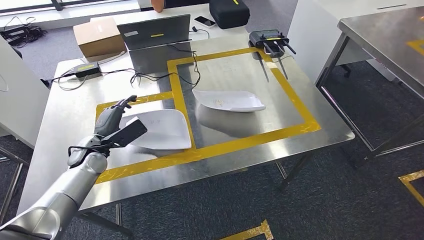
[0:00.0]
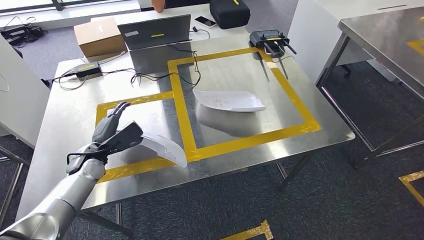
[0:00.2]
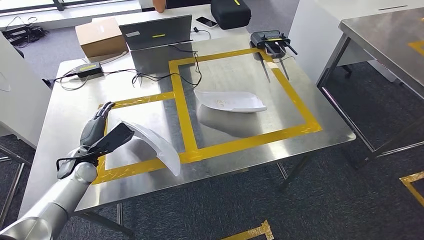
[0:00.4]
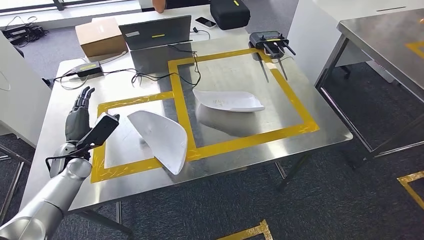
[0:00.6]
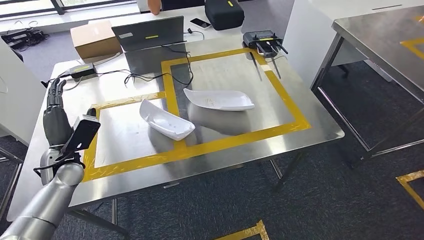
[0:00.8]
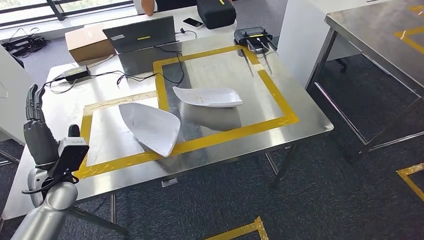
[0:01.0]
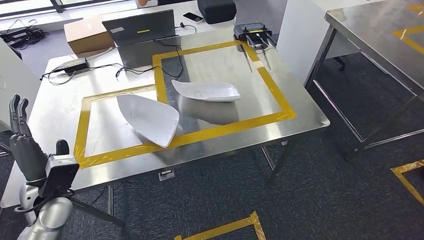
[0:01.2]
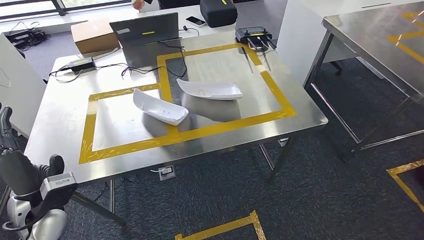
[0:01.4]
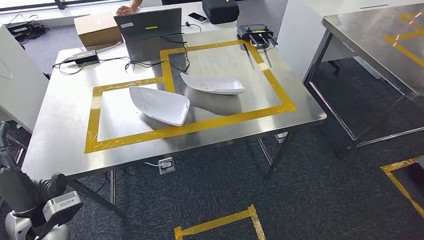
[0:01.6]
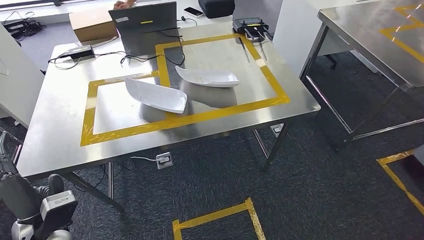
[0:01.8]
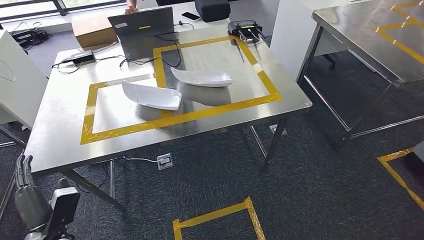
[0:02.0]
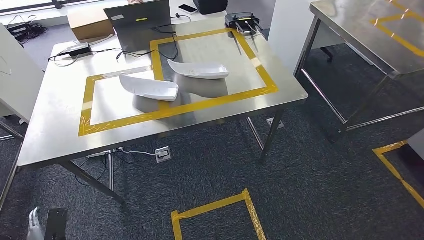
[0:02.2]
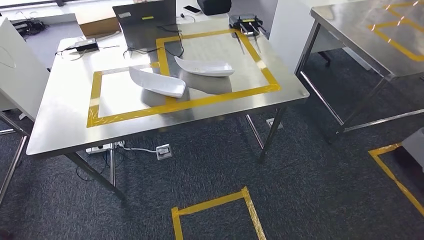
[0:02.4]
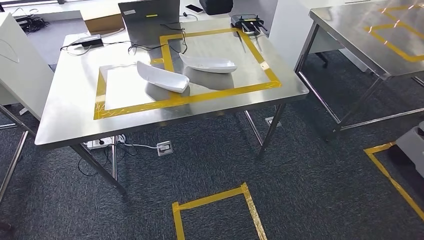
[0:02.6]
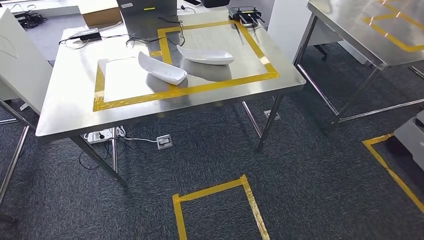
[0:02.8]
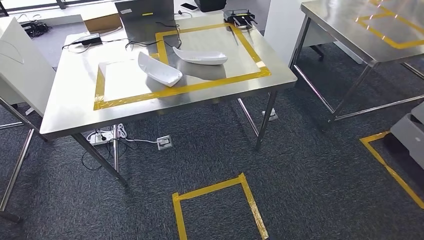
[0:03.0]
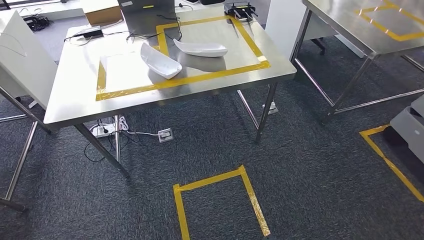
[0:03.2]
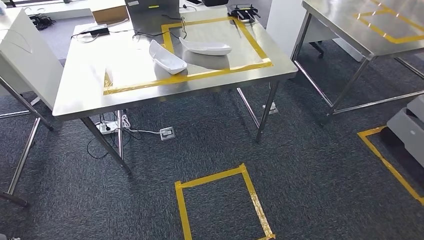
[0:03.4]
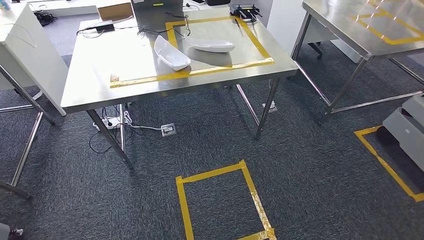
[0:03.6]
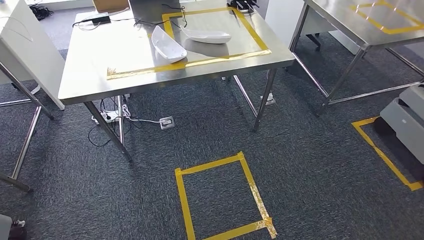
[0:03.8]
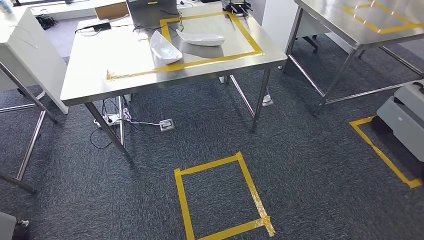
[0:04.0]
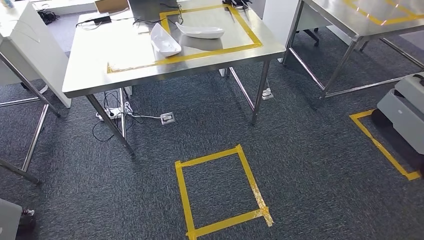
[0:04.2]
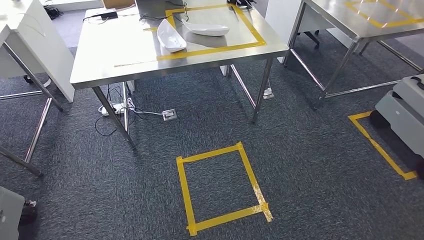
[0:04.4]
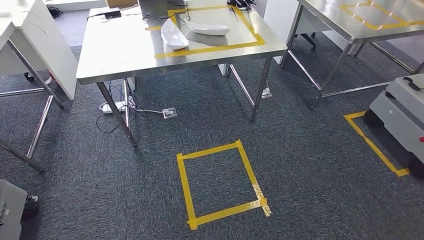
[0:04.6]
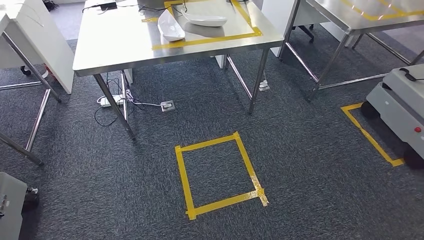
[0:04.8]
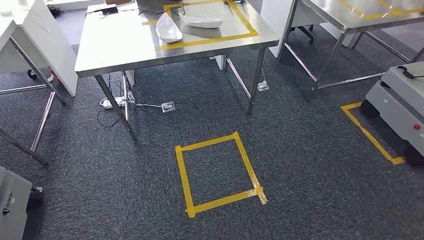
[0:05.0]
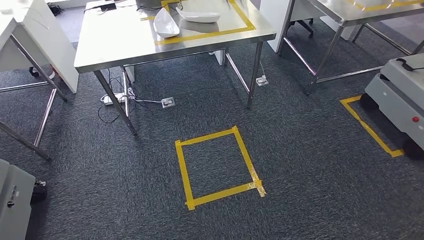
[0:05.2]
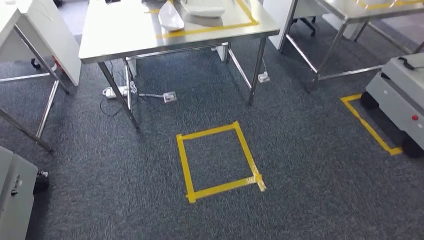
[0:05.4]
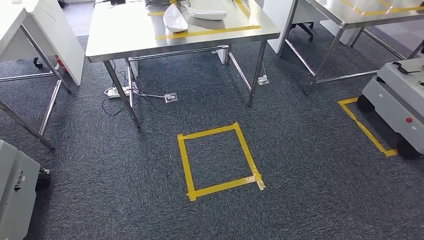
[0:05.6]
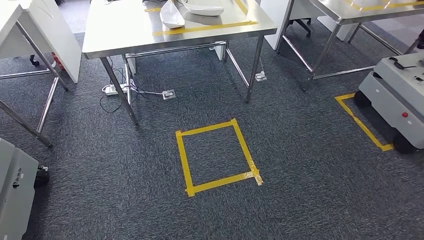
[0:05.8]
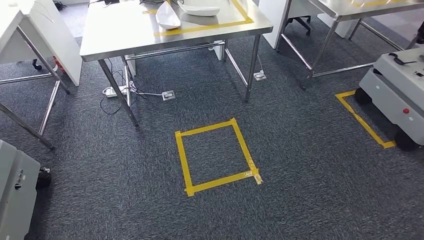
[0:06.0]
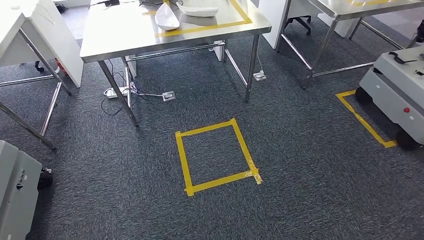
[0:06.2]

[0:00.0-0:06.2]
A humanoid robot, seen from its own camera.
Step, 0:00.0 to 0:02.4: Insert the small component into the corresponding slot on the workbench.
Step, 0:02.6 to 0:06.2: Return to the initial position at the workbench.
